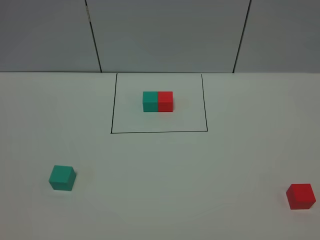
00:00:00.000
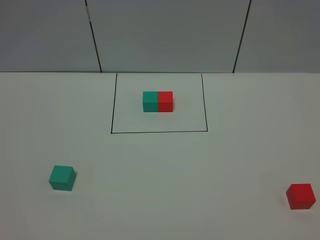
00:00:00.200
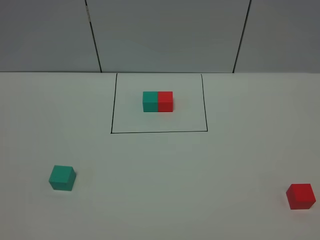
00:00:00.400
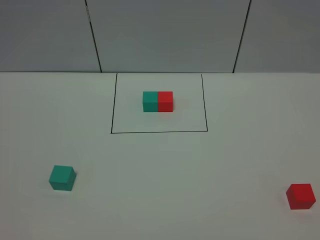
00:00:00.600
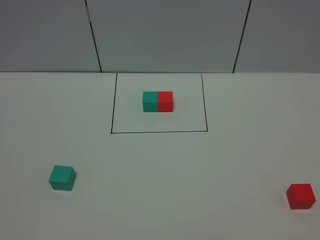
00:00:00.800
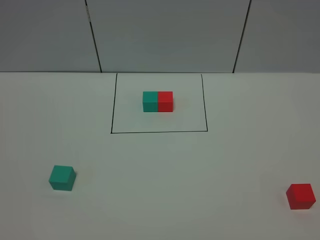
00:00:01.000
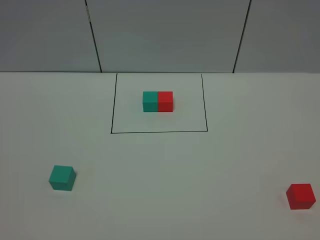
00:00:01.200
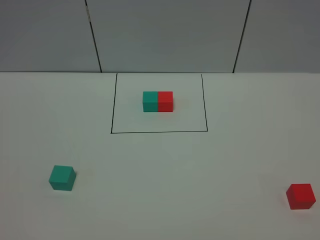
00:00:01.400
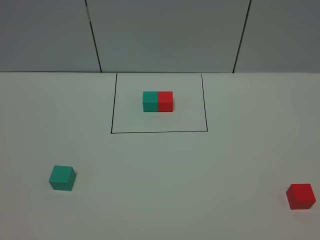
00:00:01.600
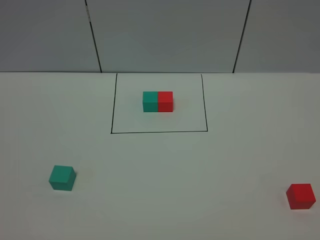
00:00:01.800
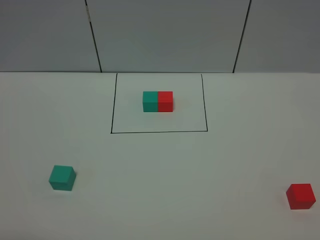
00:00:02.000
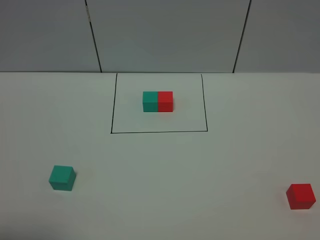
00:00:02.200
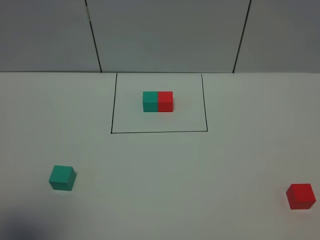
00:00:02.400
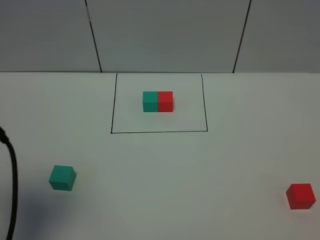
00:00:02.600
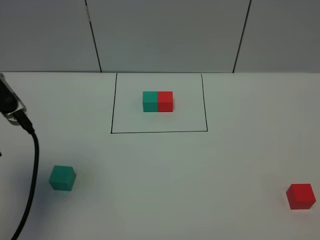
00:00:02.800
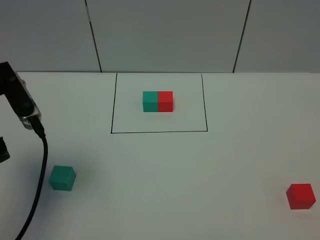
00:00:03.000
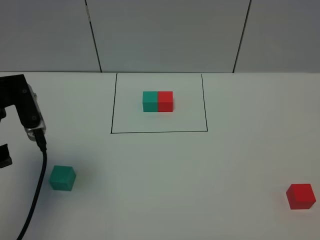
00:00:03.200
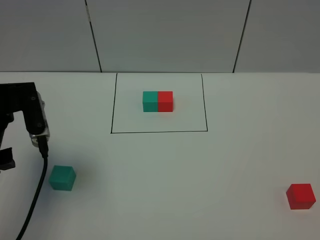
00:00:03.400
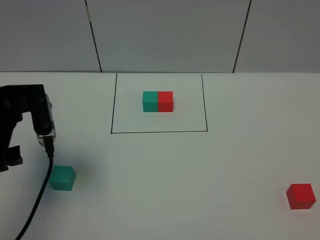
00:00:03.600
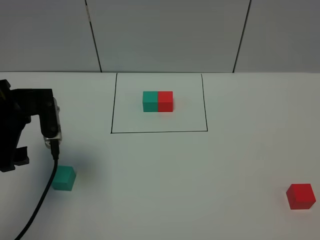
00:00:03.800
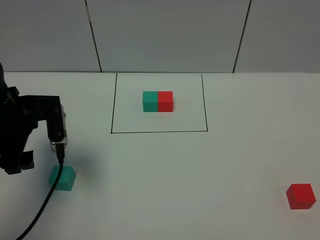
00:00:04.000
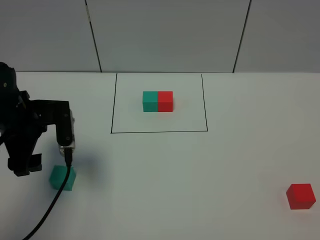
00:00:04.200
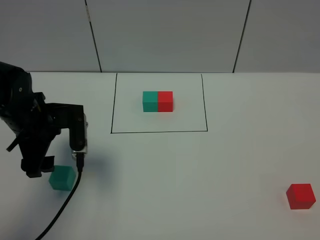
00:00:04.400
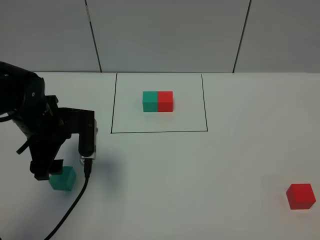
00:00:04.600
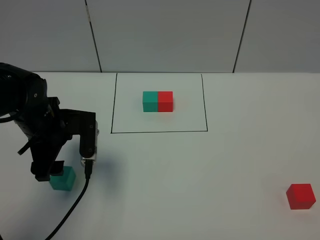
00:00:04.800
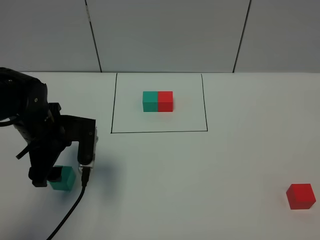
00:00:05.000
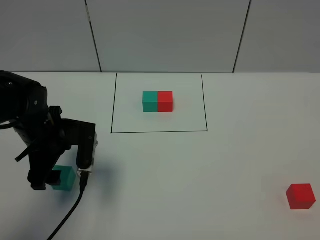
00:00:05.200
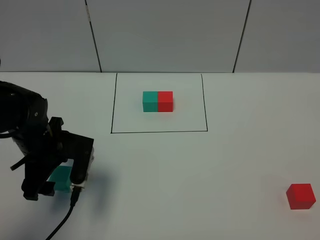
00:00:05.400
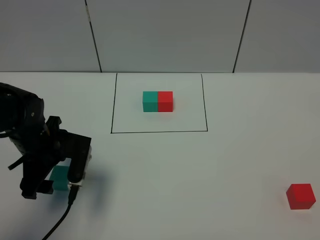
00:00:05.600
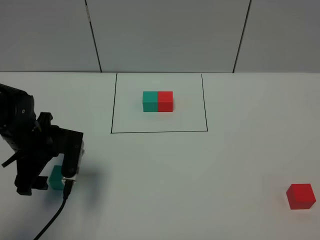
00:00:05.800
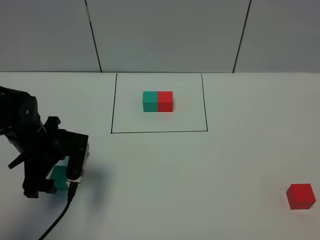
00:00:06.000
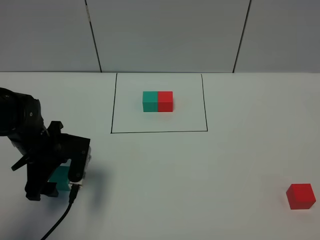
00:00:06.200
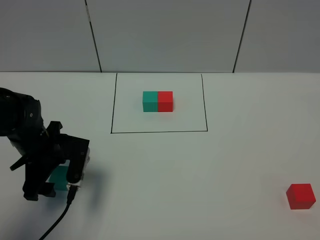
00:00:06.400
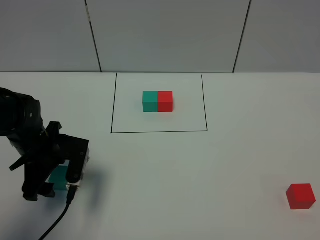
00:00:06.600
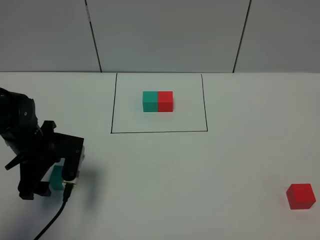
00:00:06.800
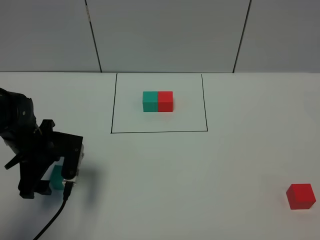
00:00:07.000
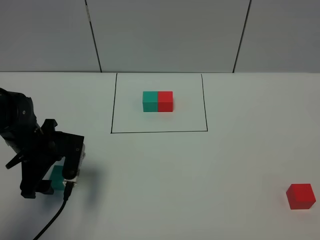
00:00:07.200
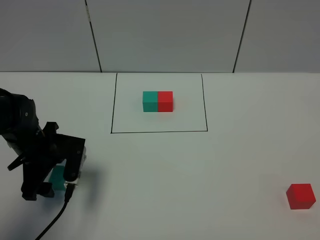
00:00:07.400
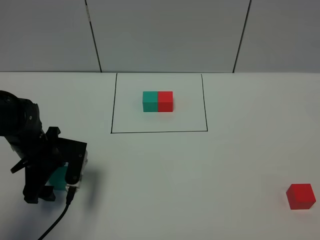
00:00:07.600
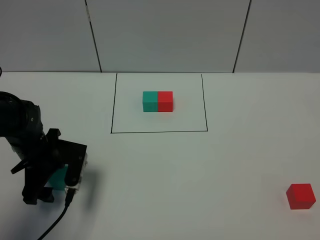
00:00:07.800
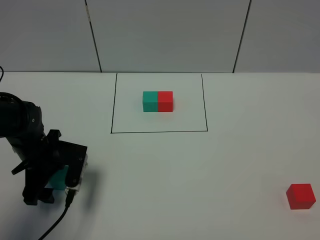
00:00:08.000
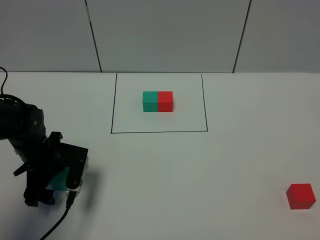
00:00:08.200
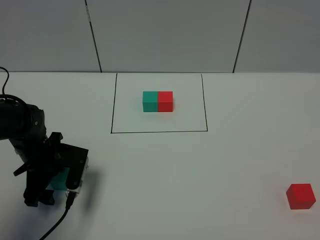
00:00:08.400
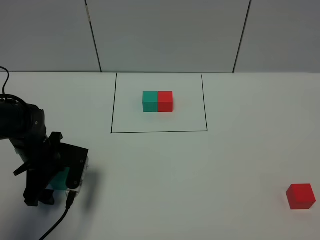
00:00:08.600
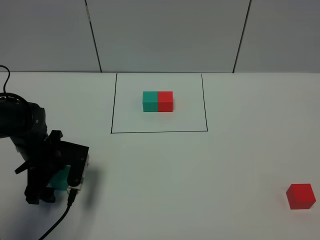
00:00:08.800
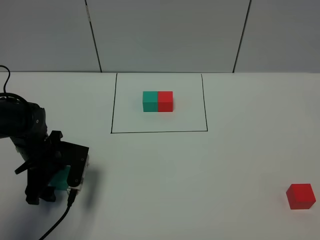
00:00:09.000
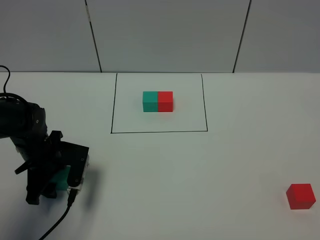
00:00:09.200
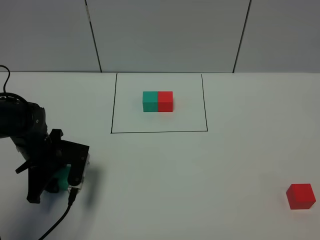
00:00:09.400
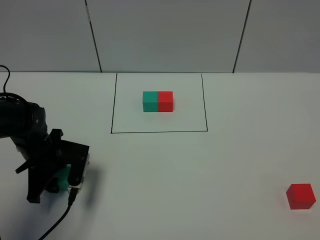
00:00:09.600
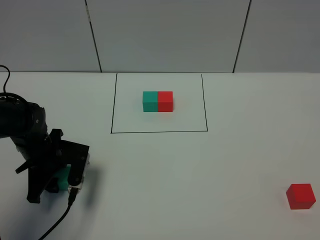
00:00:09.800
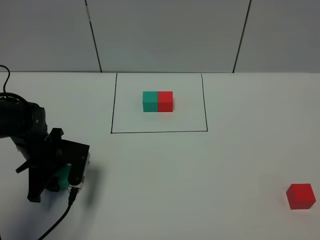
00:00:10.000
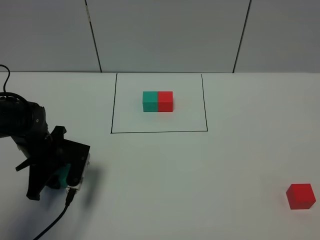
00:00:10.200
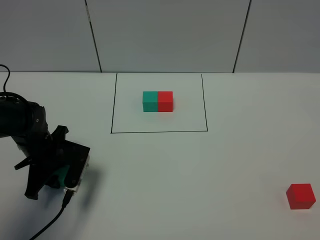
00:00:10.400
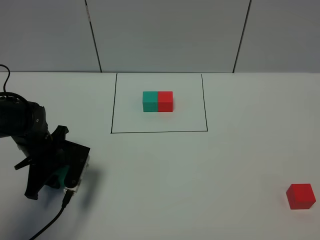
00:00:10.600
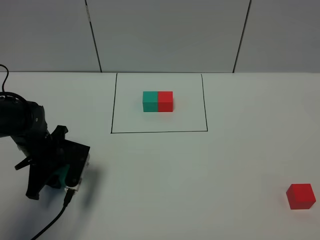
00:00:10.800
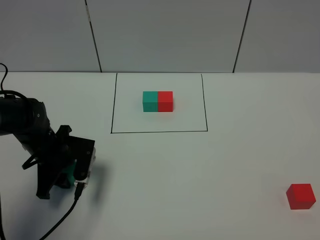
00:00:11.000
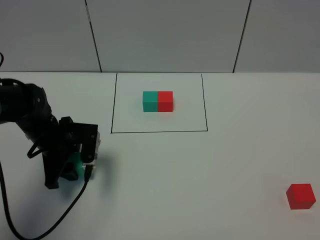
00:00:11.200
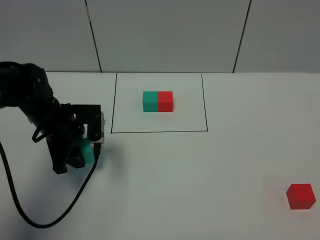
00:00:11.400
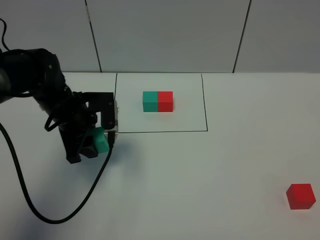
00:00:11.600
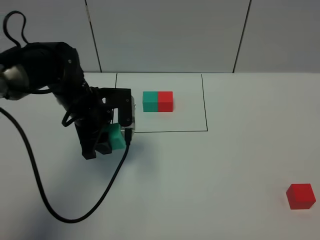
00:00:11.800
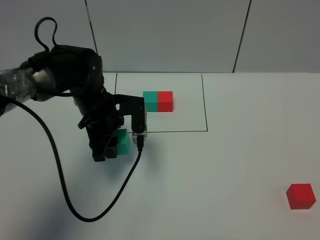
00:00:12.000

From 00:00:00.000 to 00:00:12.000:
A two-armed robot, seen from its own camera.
Task of the whole recording: According to the building block template in front, assemble the scattered blocks together.
From 00:00:01.600 to 00:00:03.000: The left gripper heads forward, covering about 25 cm.
From 00:00:03.000 to 00:00:04.400: The left gripper goes approximately 10 cm downward and forward.
From 00:00:04.400 to 00:00:06.000: The left gripper shifts by about 5 cm.
From 00:00:06.000 to 00:00:09.000: The grippers stay close to where they were, moving slightly.
From 00:00:09.000 to 00:00:10.400: The left gripper closes up.
From 00:00:10.400 to 00:00:12.000: The left gripper shifts some 15 cm to the right, upward and forward.

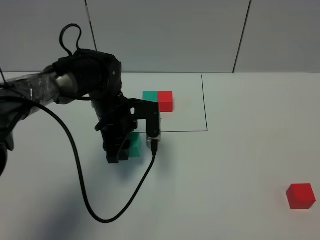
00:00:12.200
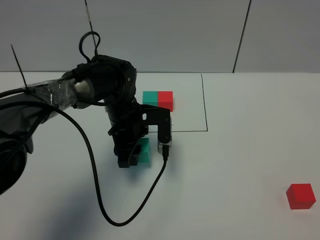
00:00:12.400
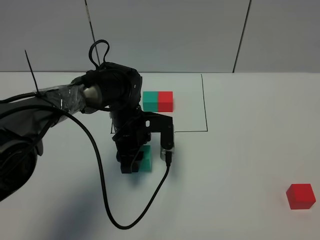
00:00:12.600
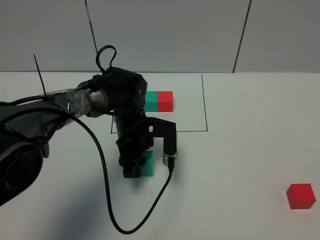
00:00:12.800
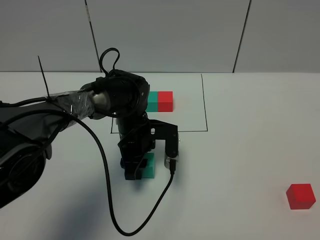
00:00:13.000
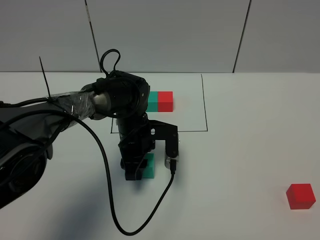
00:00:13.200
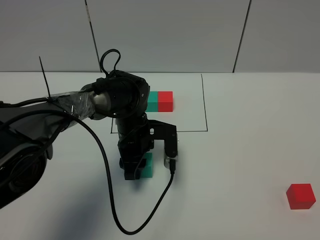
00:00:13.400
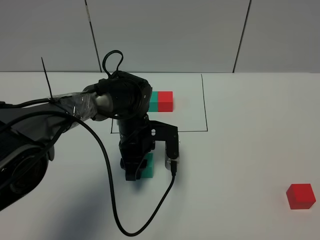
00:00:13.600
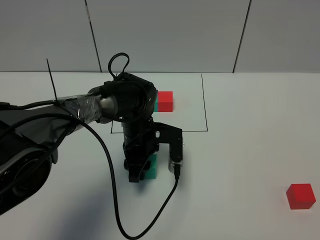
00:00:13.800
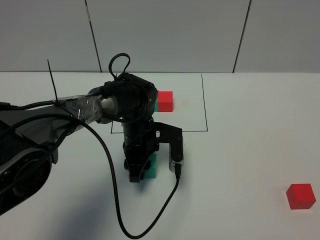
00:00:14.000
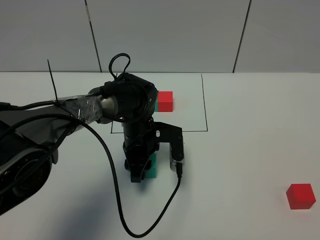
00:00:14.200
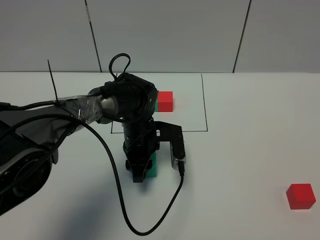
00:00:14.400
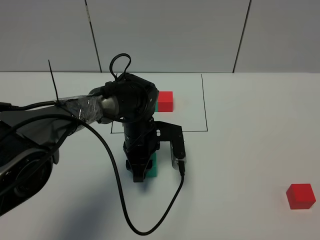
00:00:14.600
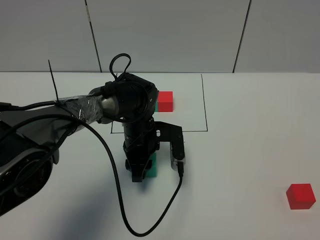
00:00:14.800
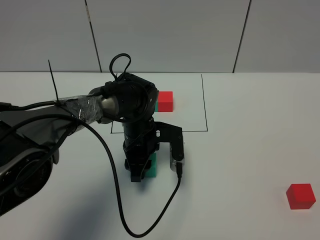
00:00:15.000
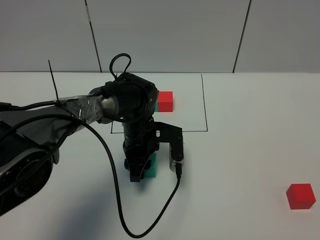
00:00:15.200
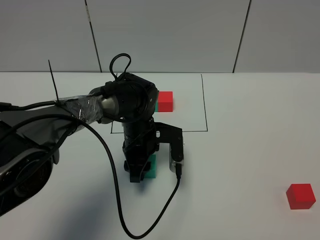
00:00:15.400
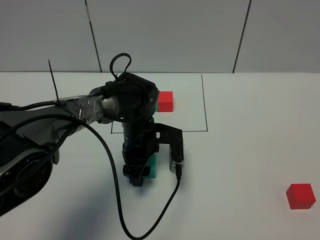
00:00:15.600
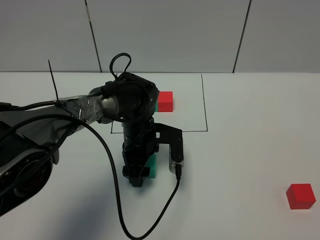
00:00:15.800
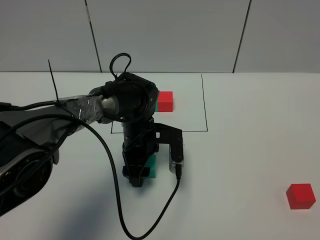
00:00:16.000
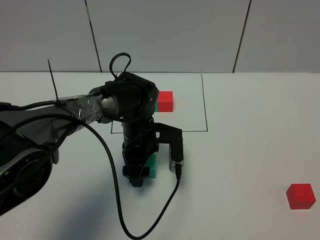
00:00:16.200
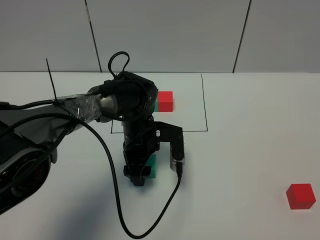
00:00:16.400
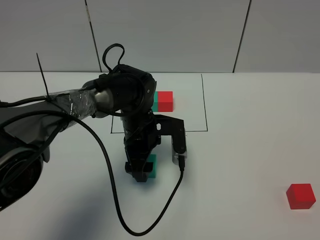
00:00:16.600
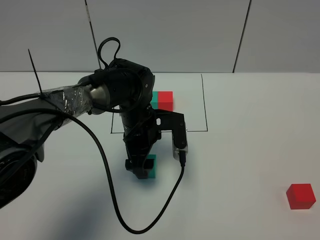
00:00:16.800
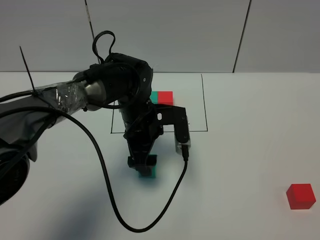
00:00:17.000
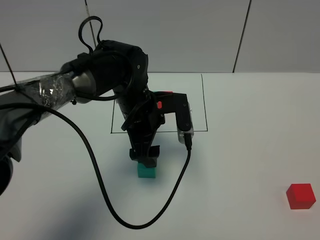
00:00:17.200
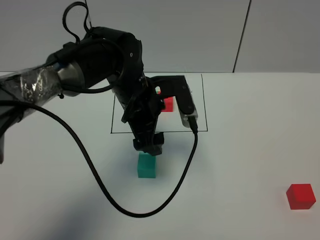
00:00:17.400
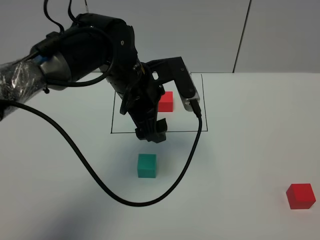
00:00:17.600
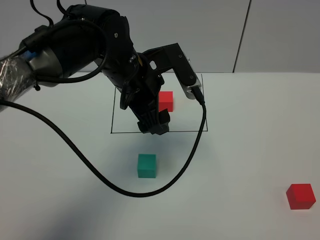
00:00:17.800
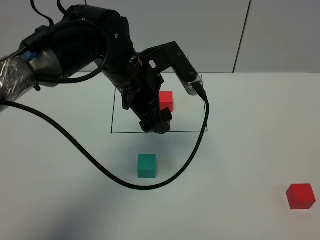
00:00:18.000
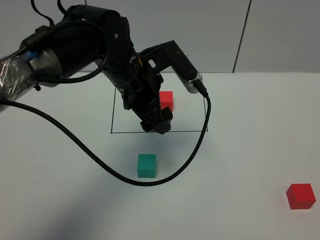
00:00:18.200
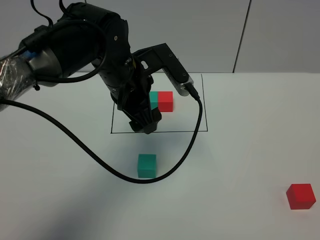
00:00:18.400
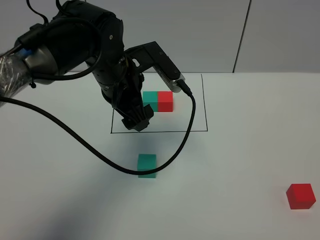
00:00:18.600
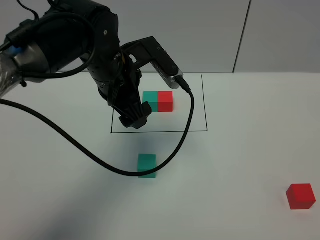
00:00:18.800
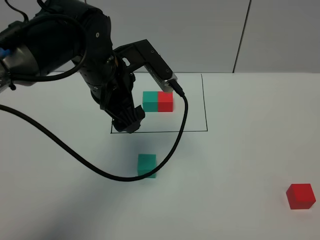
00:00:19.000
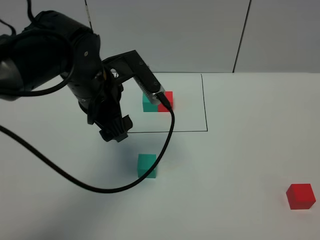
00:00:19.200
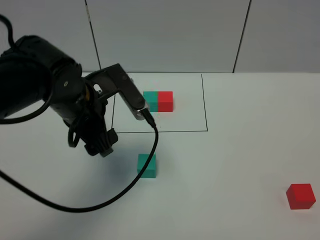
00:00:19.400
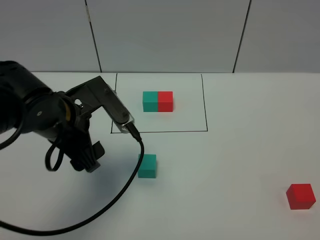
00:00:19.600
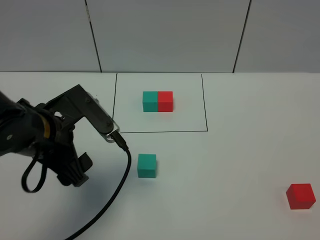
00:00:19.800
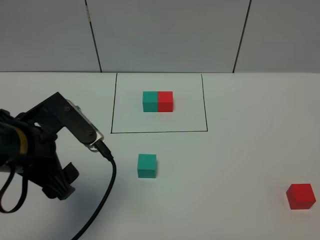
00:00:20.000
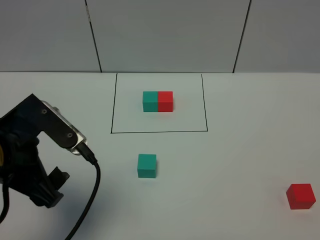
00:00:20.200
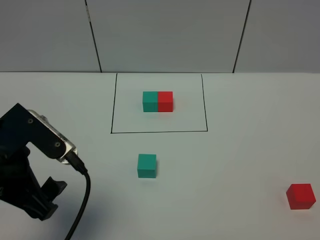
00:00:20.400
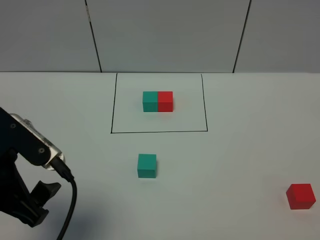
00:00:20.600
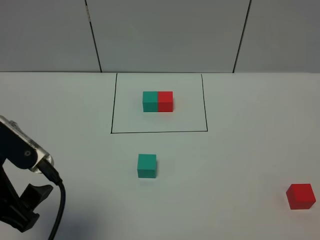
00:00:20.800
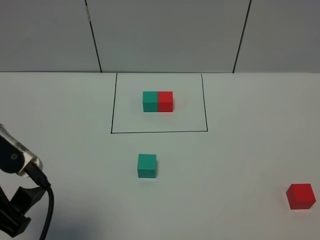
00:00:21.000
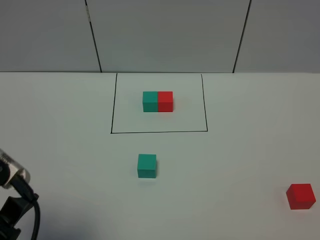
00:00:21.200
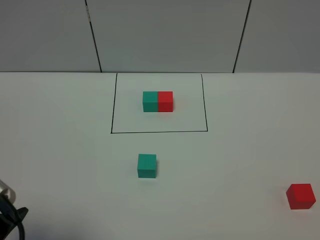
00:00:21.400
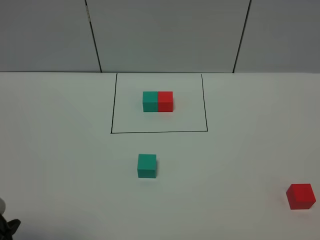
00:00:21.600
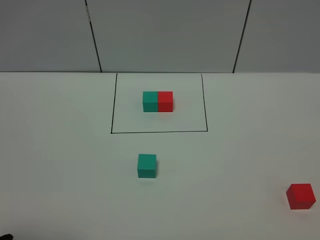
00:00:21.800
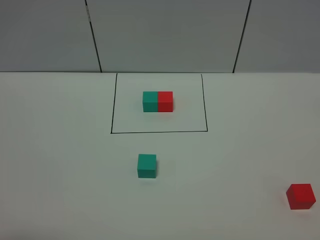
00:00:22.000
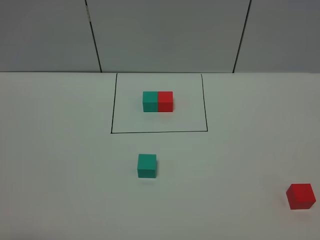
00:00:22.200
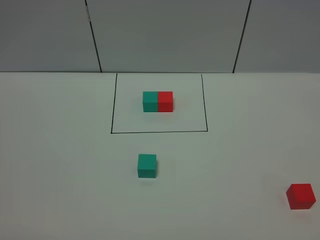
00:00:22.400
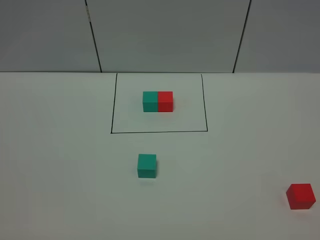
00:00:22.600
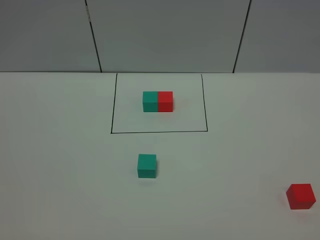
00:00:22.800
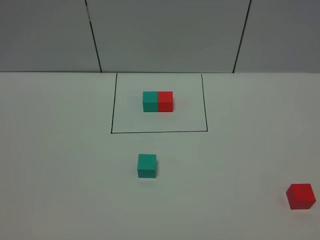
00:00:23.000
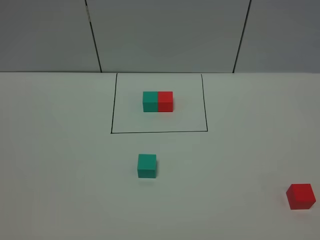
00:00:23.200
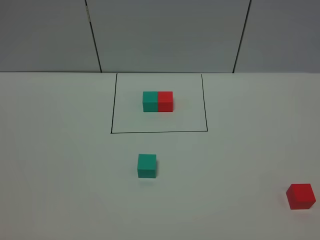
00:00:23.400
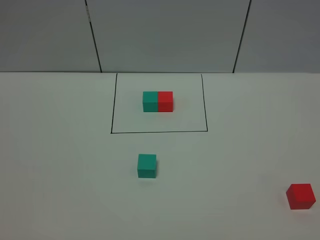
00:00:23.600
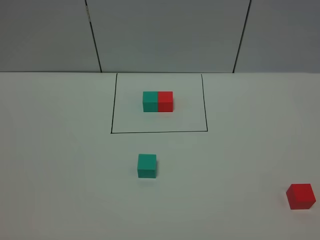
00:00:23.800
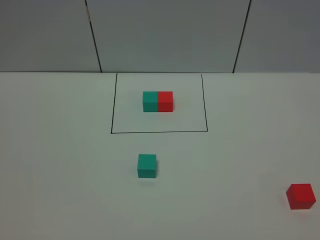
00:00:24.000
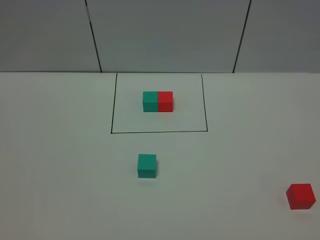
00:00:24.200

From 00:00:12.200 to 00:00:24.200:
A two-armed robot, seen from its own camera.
Task of the whole recording: According to the building block template in front, assemble the scattered blocks together.
Step, from 00:00:12.200 to 00:00:17.200: Put the green cube in the center of the table.
From 00:00:12.200 to 00:00:13.800: The left gripper moves roughly 5 cm.
From 00:00:13.800 to 00:00:15.200: The grippers make only small movements.
From 00:00:15.200 to 00:00:16.600: The left gripper opens its fingers.
From 00:00:16.600 to 00:00:18.200: The left gripper travels upward by roughly 15 cm.
From 00:00:18.200 to 00:00:19.800: The left gripper heads backward and to the left, covering approximately 15 cm.
From 00:00:19.800 to 00:00:21.200: The left gripper moves backward and to the left, some 15 cm.
From 00:00:21.200 to 00:00:22.600: The left gripper goes roughly 10 cm backward.
